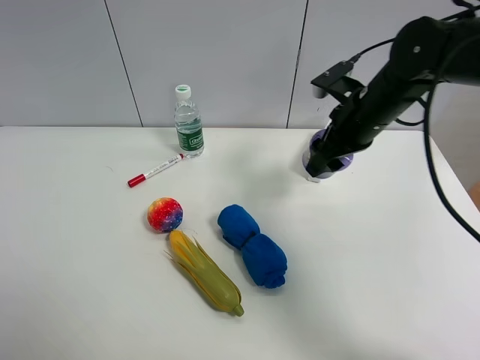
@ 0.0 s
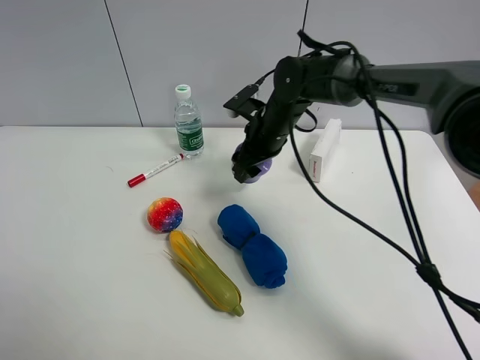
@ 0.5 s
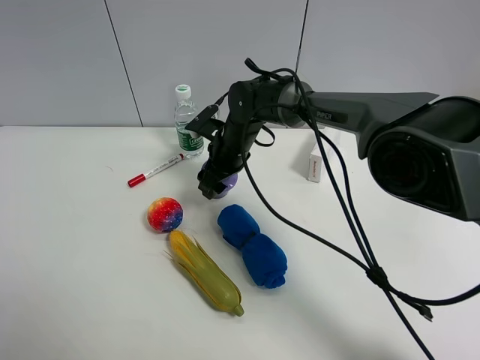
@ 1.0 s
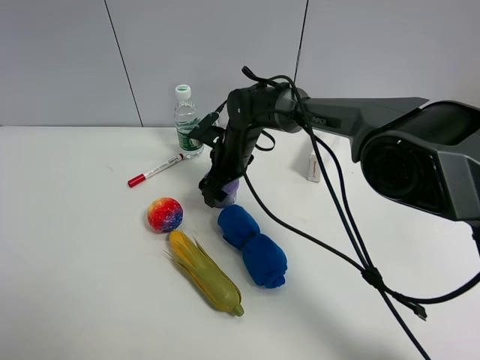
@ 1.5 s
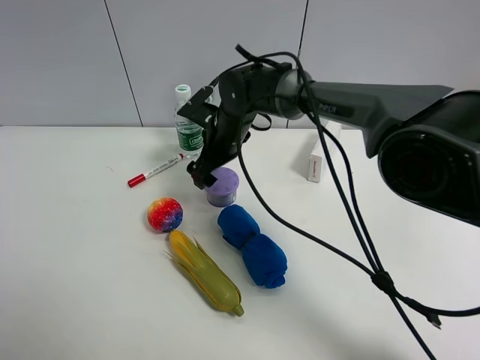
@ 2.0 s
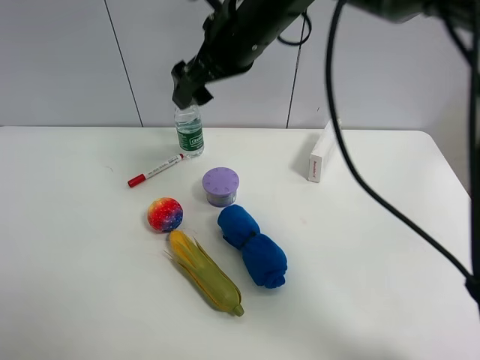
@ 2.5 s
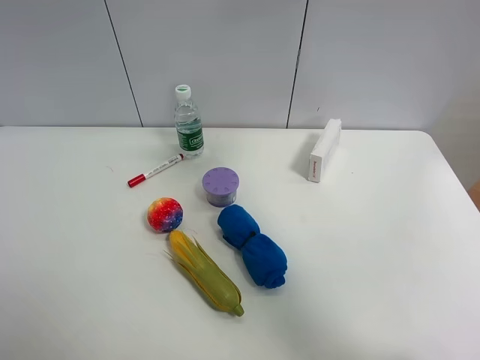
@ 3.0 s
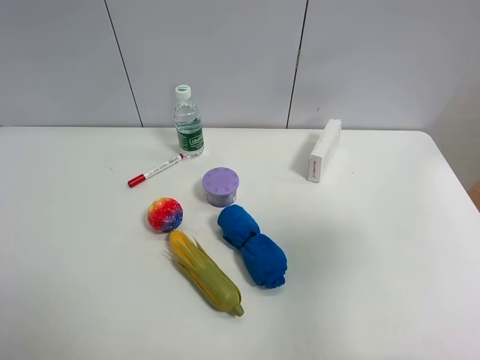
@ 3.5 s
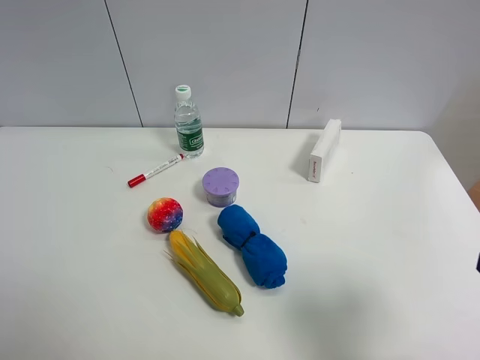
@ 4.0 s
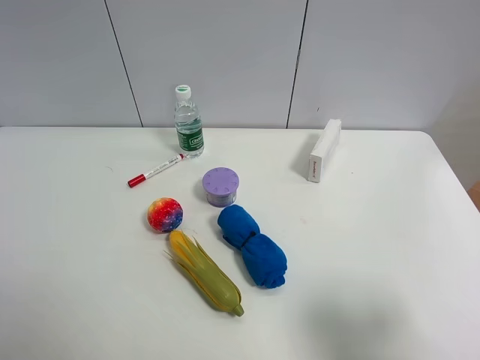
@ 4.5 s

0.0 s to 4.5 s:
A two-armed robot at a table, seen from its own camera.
Task of the whole recording: the gripper move the object.
Step, 0.0 to 1.5 s: Place the Incense box on the table with the right gripper.
0.0 to 2.0 s: The right gripper moves to the left, about 20 cm, and opens up.
2.0 to 4.5 s: The right gripper travels backward and to the right by approximately 50 cm.

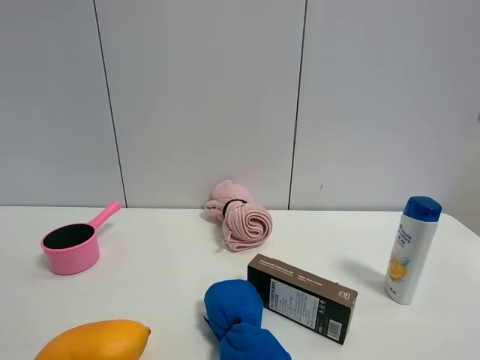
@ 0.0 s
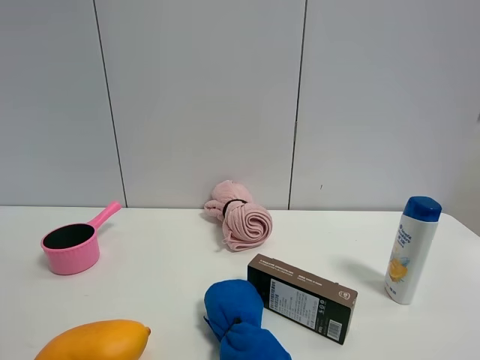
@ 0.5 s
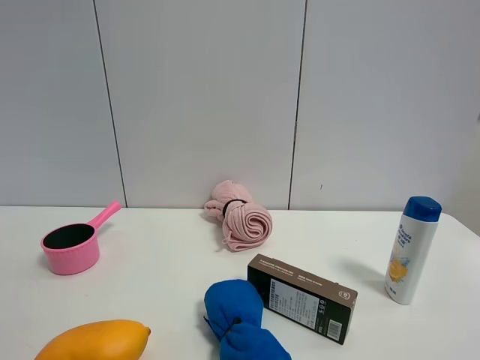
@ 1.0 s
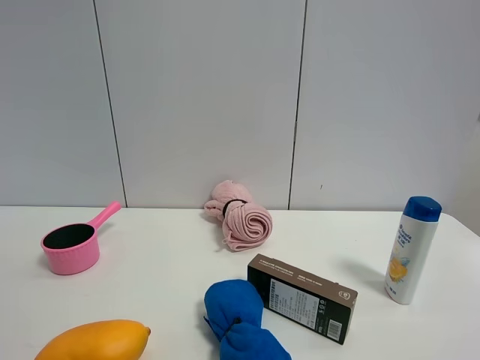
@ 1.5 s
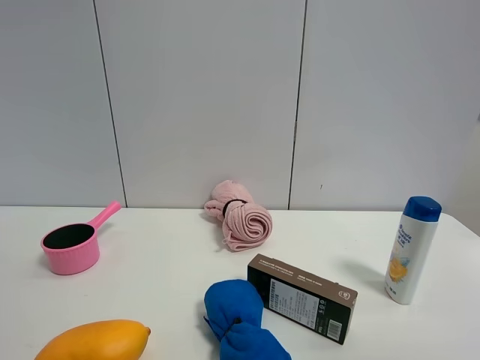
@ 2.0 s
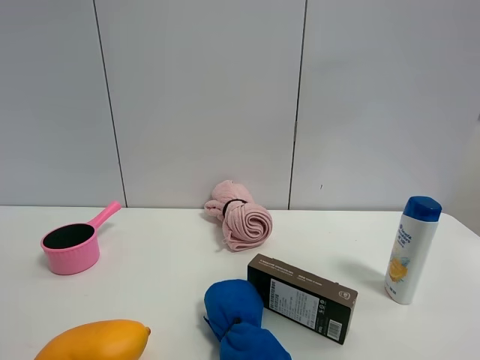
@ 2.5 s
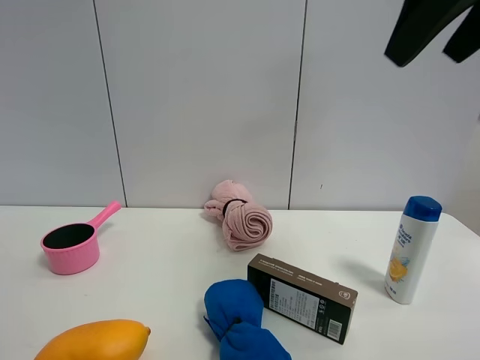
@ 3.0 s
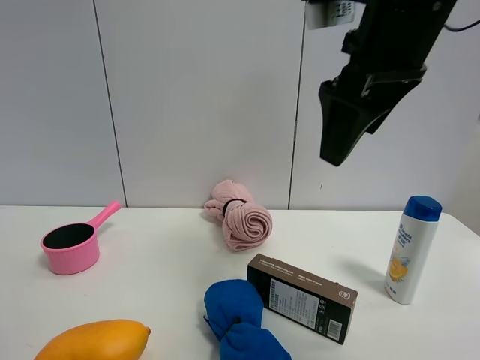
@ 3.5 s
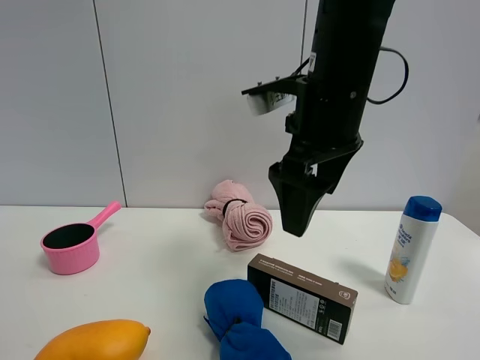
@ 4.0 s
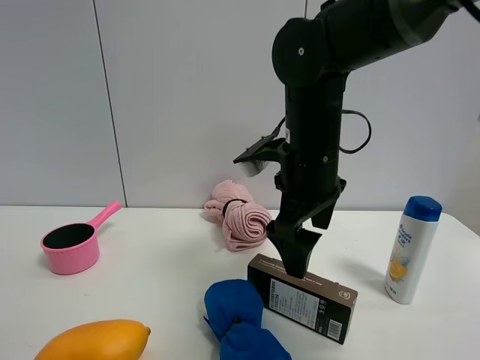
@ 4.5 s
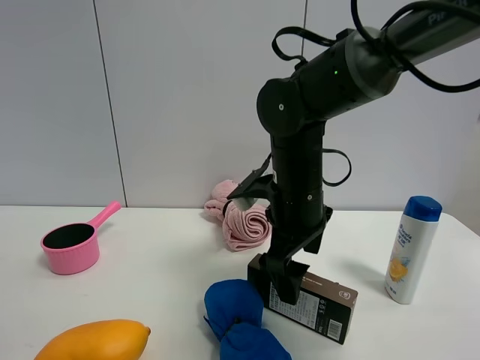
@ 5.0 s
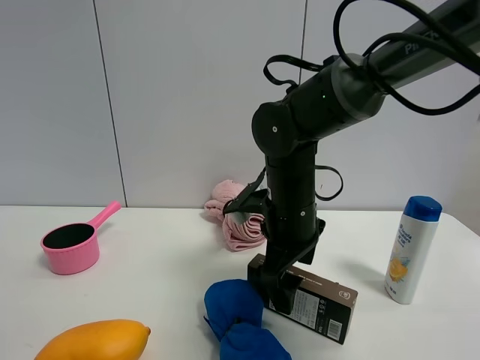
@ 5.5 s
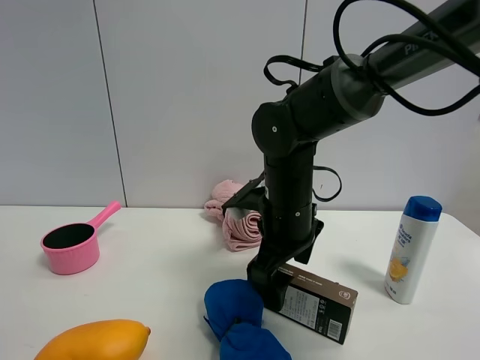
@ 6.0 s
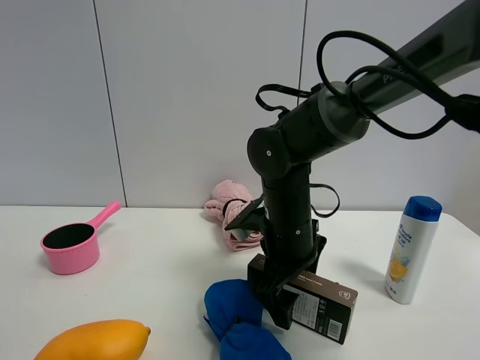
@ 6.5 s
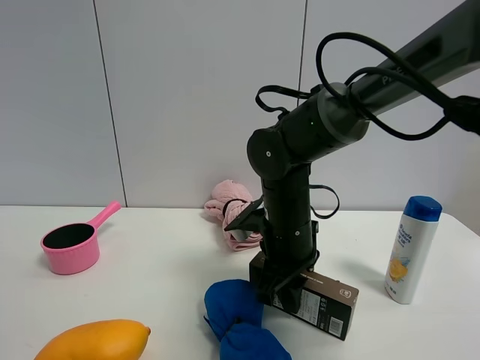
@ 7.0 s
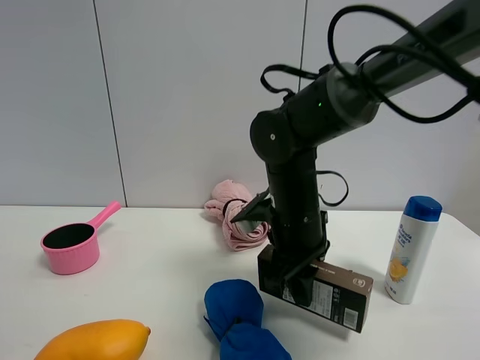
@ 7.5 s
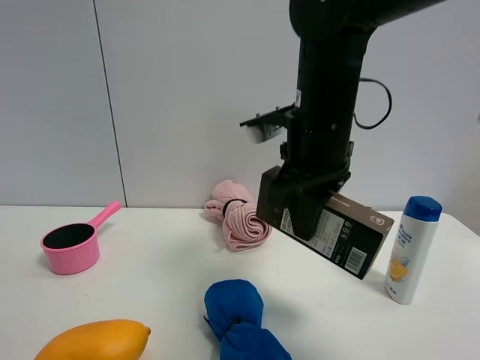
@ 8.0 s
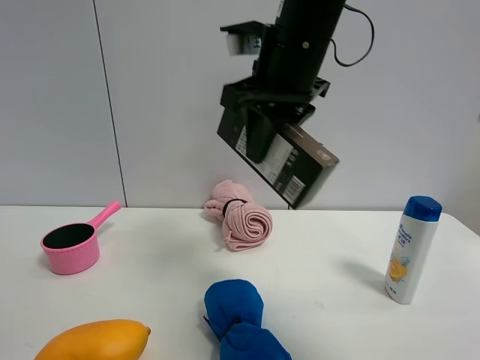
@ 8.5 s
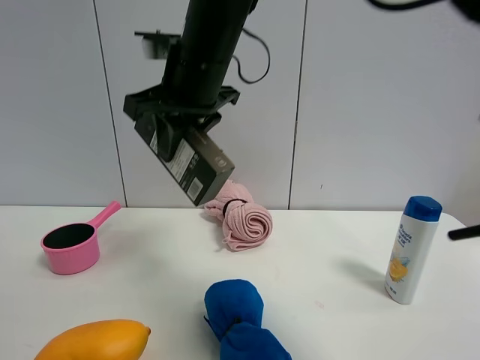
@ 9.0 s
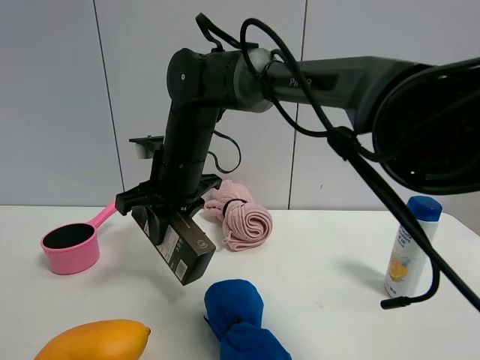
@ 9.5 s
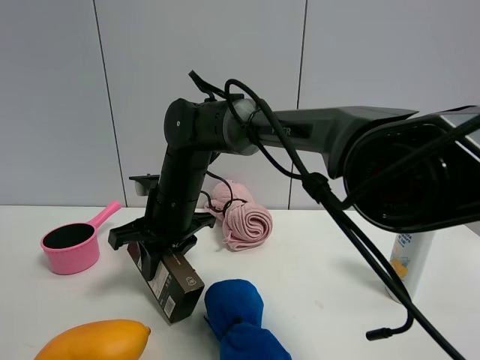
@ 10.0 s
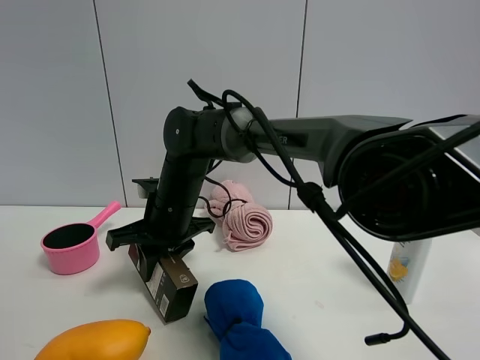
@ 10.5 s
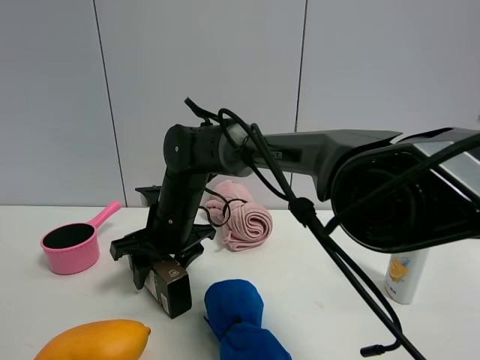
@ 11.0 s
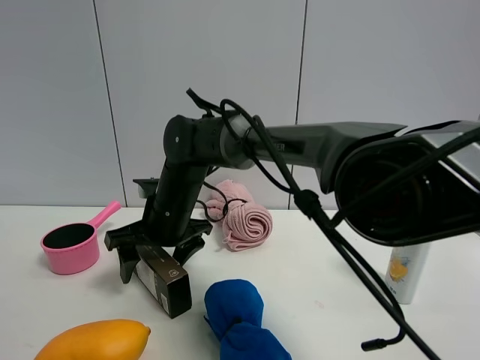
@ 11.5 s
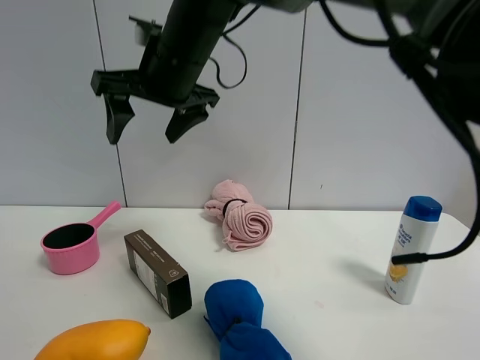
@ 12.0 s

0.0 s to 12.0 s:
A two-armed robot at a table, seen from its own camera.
Task of the whole recording: the gripper move the object.
Step, 0.0 to 6.5 s: Grasp the brown box with the right gripper.
Step, 7.0 to 11.0 s: Place the brown box on the table with the right gripper.
2.0 to 4.0 s: The right gripper moves forward and to the left, roughly 35 cm.
4.0 to 6.0 s: The right gripper travels downward by approximately 15 cm.
6.0 to 8.0 s: The right gripper heads upward, covering roughly 10 cm, and closes its fingers.
8.0 to 10.0 s: The right gripper heads to the left, downward and forward, covering approximately 20 cm.
10.0 to 12.0 s: The right gripper moves upward, about 20 cm, and opens.

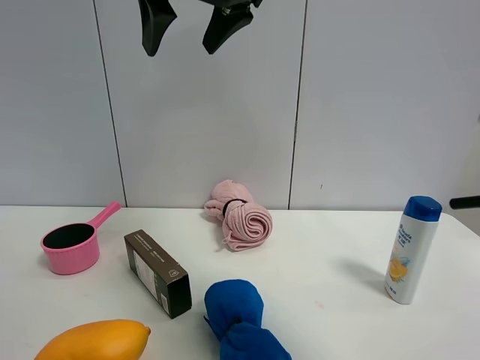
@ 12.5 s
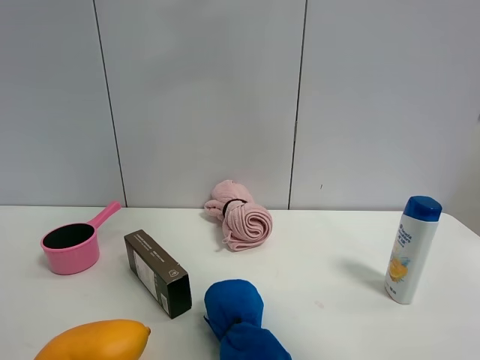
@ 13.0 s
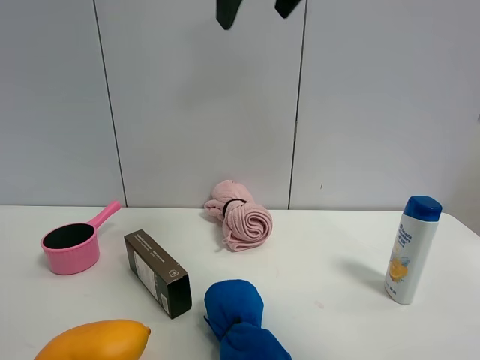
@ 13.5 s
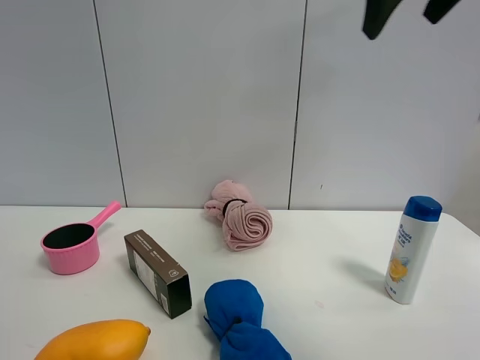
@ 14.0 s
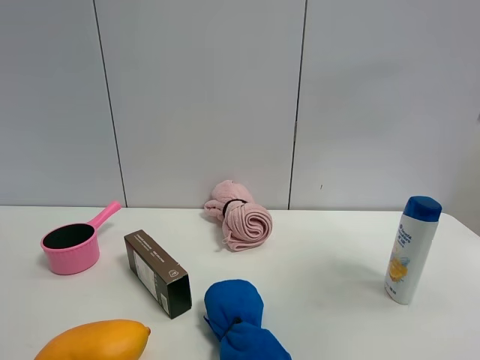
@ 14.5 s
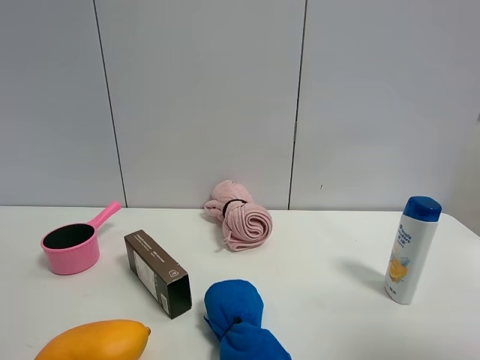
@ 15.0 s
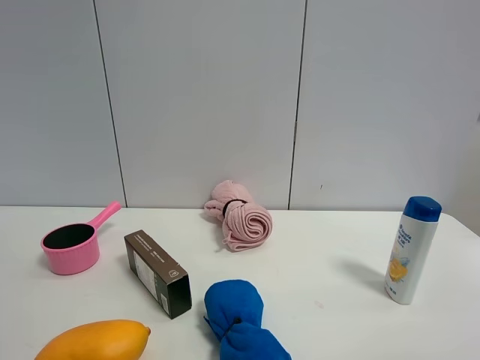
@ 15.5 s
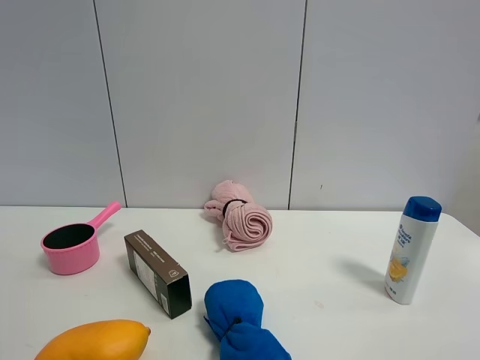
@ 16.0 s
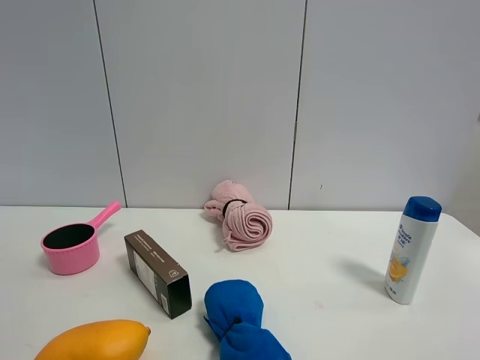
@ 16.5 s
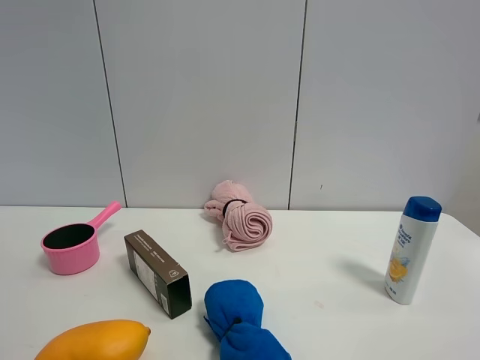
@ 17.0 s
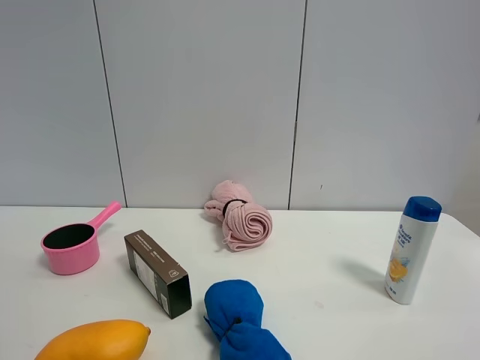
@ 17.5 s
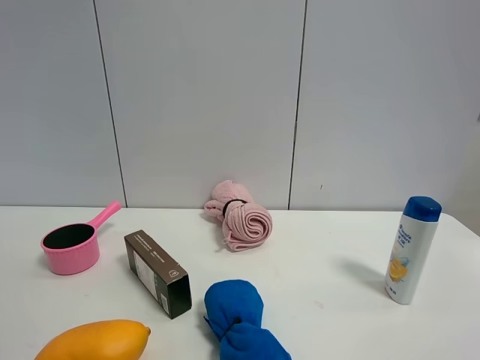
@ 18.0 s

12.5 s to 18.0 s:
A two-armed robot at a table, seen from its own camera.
Task of the whole recording: the gripper move the object.
12.5 to 14.5 s: The right gripper heads to the right and backward, covering about 35 cm.
14.5 to 16.0 s: The right gripper moves backward and downward, roughly 25 cm.
16.0 to 18.0 s: Neither gripper changes place.

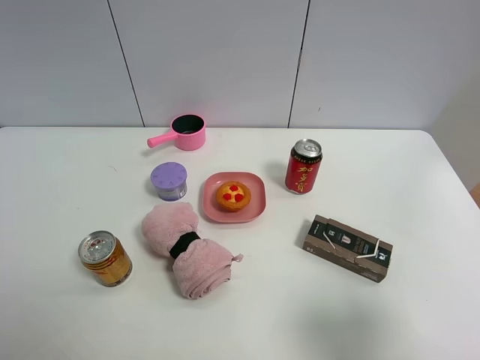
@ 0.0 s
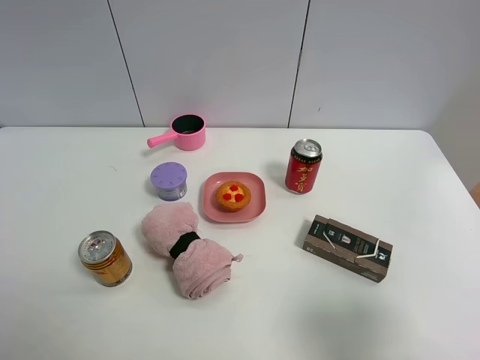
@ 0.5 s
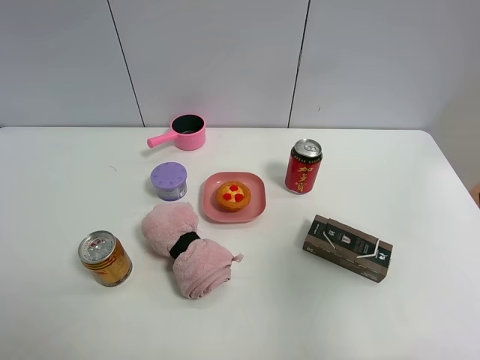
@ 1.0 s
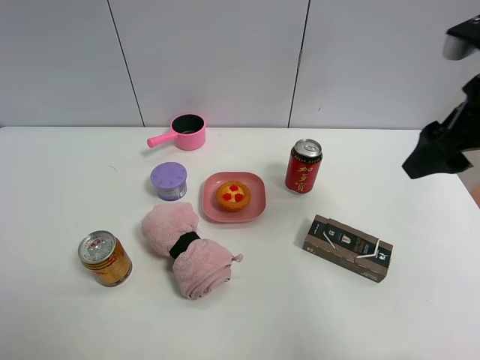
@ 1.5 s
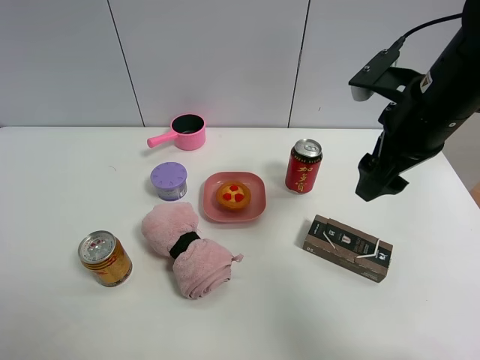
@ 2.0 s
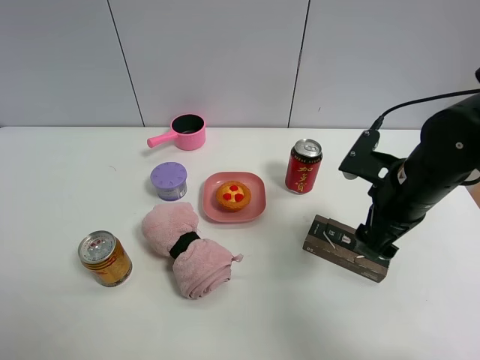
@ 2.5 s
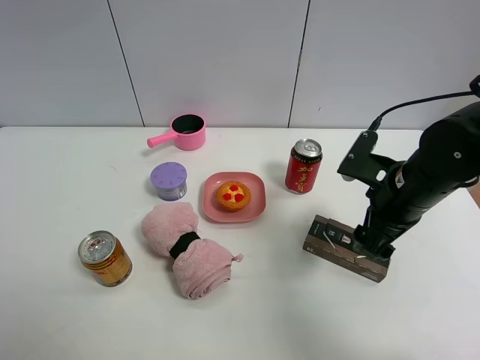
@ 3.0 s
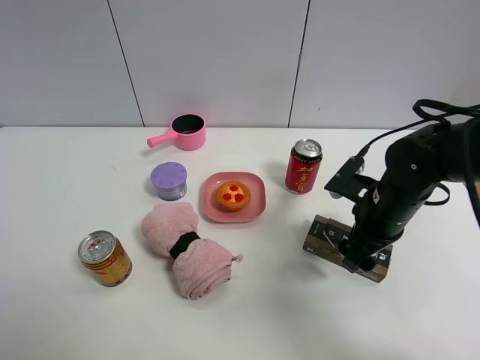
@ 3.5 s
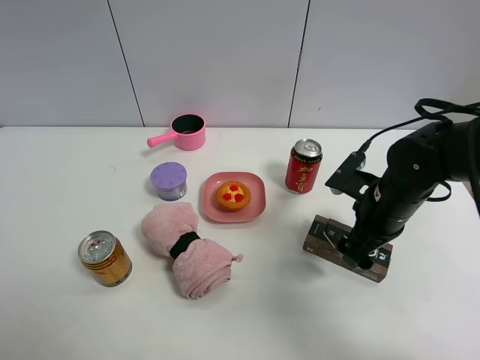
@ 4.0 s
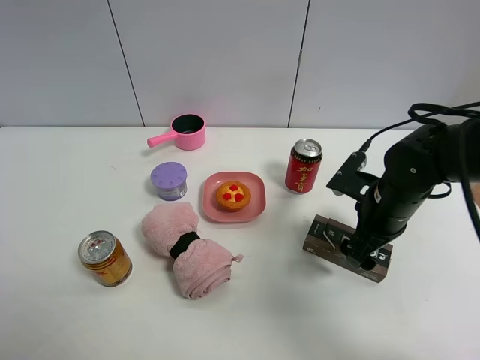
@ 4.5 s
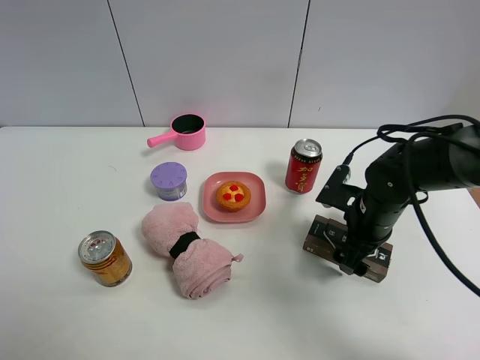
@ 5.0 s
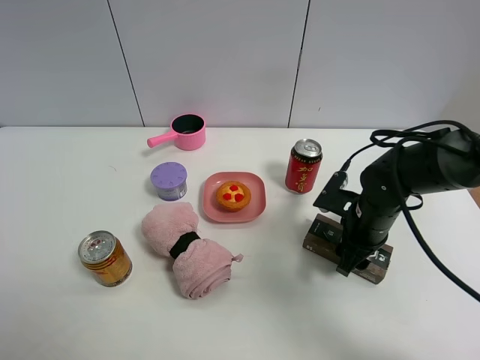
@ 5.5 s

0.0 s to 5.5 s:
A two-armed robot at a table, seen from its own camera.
Task of the whole recording: the gripper move the object.
Step, 0.0 to 5.5 s: Grasp the black box with the right gripper.
0.0 to 2.0 s: The right gripper goes roughly 25 cm forward, and closes up.
2.0 to 3.5 s: The right gripper goes approximately 15 cm downward.
3.5 to 5.5 s: The right gripper moves roughly 5 cm, and closes its fingers.
